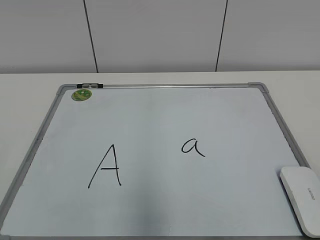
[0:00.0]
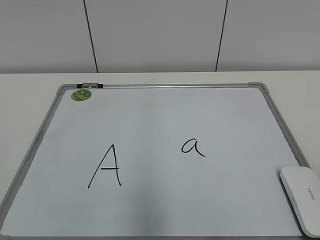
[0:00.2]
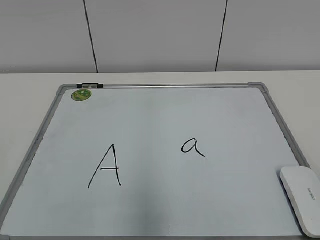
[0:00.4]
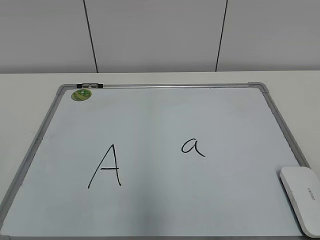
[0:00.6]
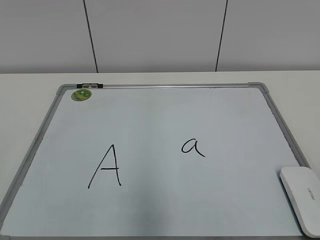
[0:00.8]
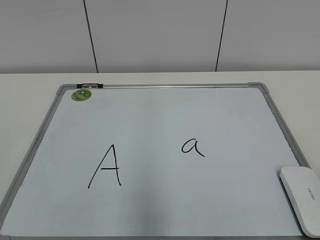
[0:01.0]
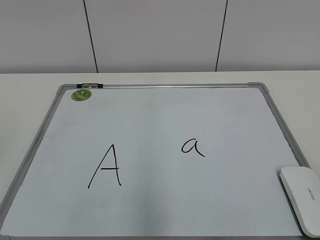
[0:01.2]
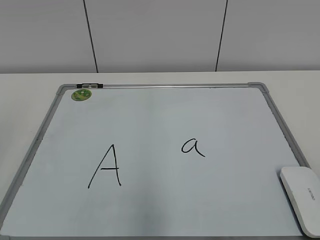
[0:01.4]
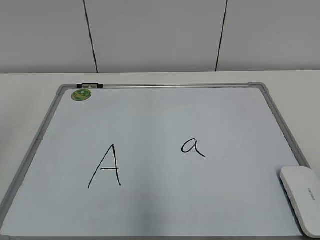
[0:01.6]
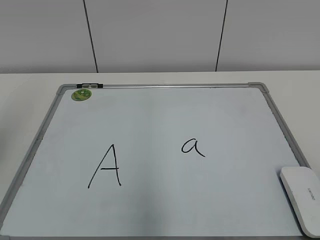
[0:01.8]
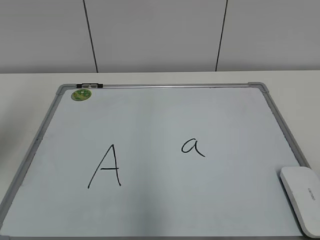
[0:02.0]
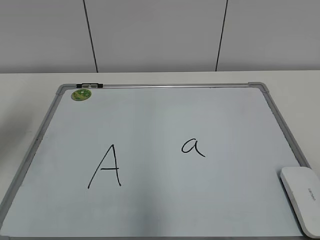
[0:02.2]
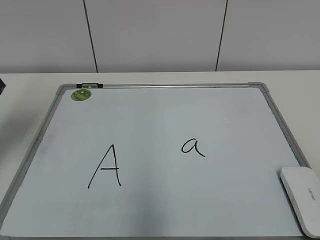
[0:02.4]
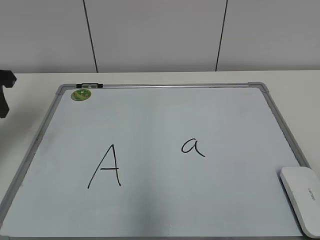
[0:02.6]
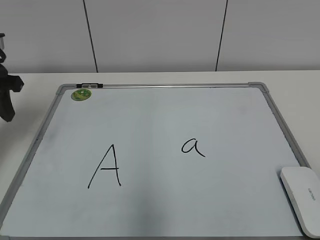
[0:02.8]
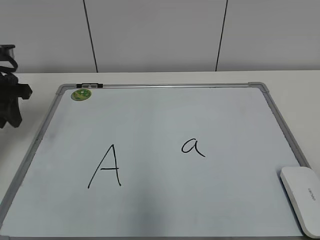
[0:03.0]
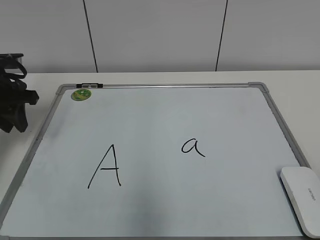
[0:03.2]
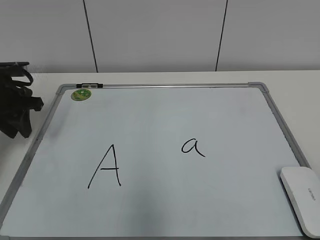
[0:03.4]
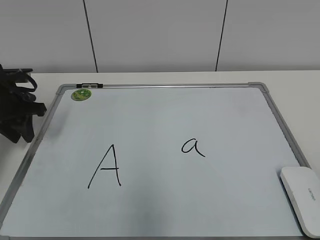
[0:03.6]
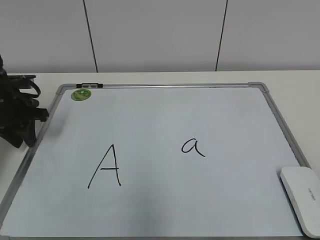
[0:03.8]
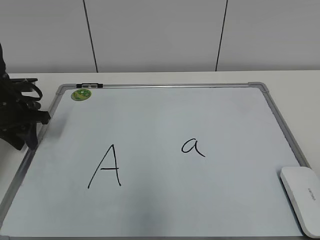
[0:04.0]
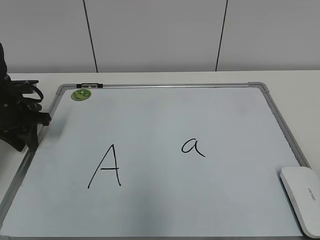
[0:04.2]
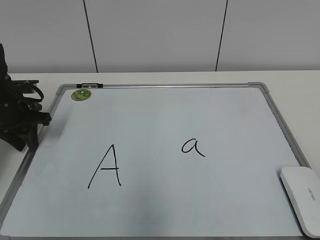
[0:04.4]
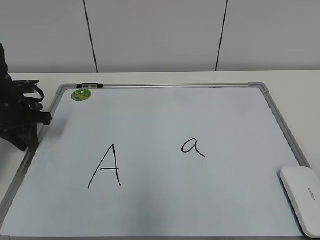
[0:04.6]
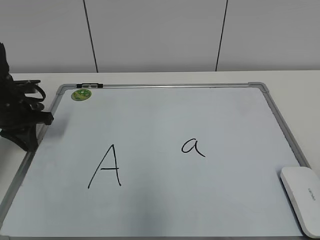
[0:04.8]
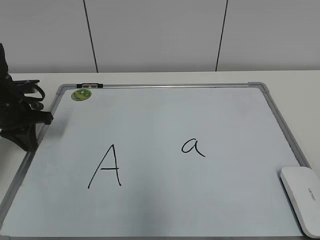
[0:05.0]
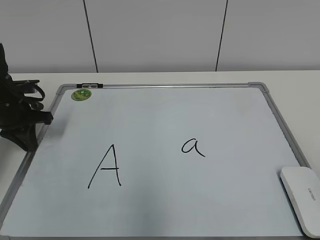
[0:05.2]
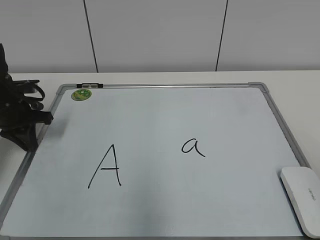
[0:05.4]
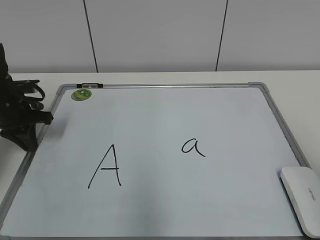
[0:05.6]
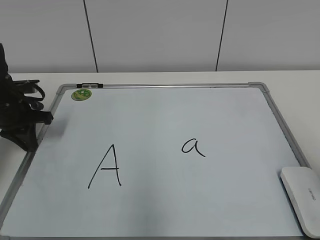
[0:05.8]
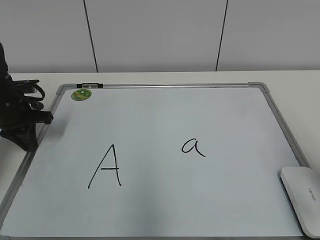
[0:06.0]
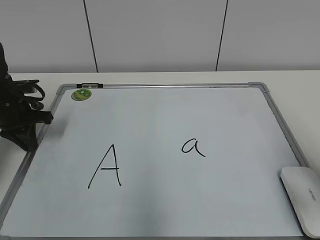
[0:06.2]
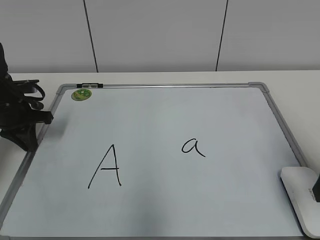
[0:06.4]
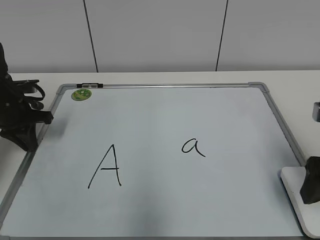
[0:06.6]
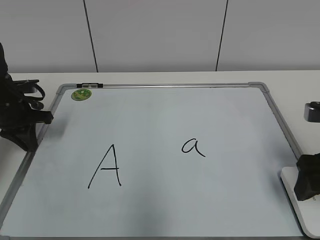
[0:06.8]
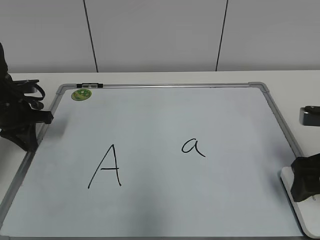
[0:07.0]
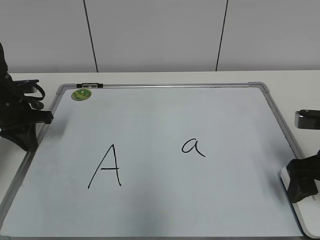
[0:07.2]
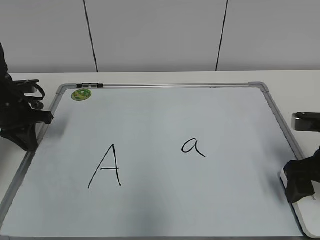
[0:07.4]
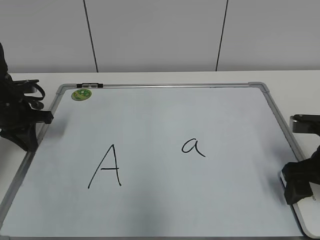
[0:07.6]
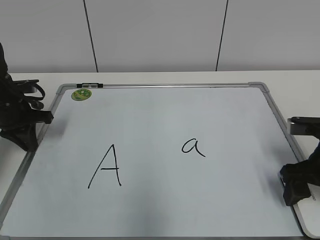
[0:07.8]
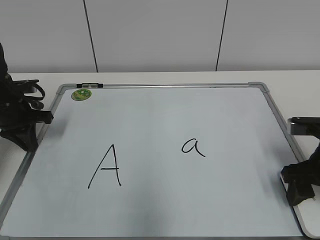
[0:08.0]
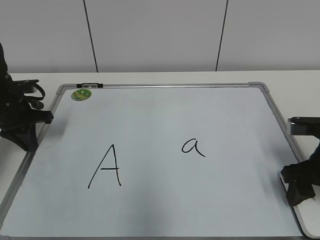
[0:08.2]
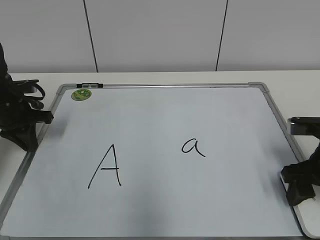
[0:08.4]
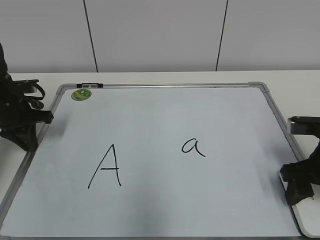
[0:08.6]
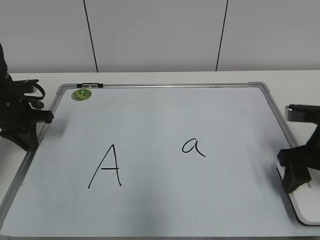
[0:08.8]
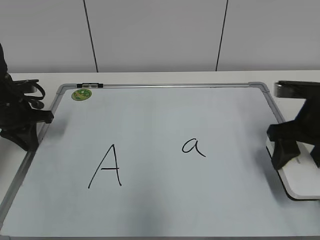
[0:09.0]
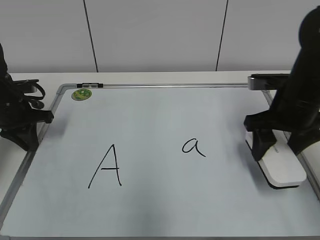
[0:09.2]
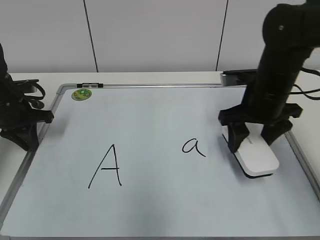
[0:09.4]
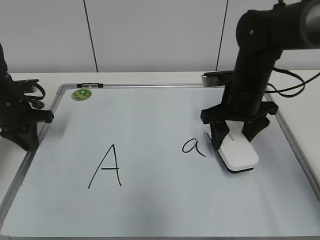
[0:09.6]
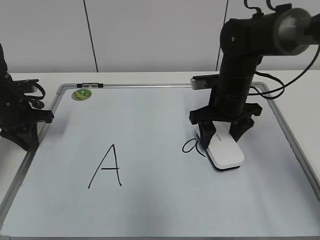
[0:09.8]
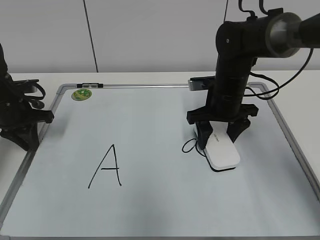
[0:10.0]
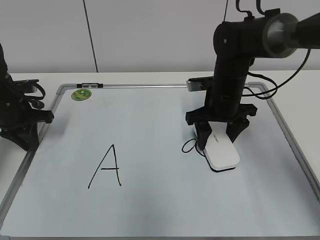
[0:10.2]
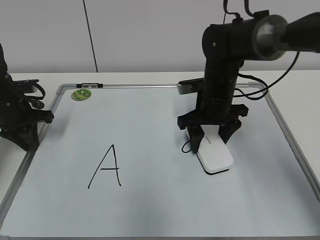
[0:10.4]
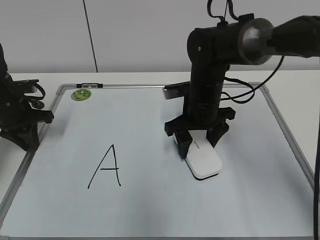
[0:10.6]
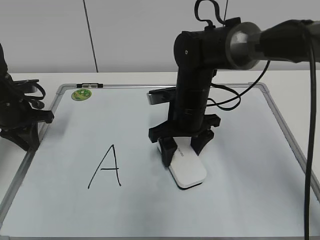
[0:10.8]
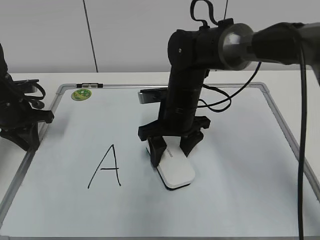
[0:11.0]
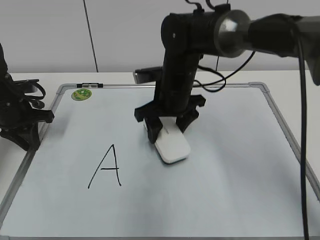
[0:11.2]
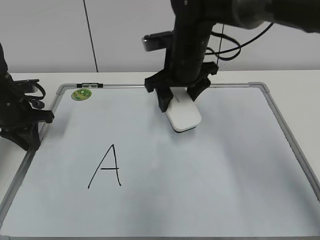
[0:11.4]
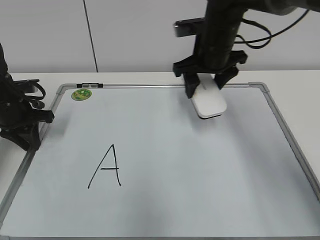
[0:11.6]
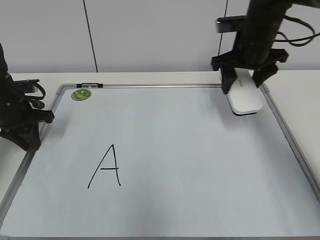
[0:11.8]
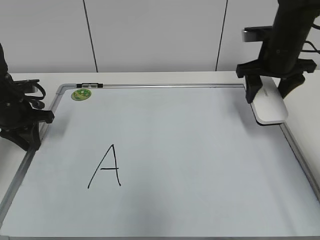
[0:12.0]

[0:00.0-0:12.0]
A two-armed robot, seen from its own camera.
Task of the whole recording: pick up the eraser on the blackboard and erase the letter "a".
Step, 0:00.0 to 0:05.2: Hold the drawing board steady with your left hand.
Step, 0:05.4 to 0:08.4: Grab the eraser with your right hand.
Step, 0:08.6 to 0:10.8: Erase the letter a with your right hand.
0:01.6 to 0:03.0: The left gripper goes approximately 30 cm forward and downward.
0:03.0 to 0:04.4: The left gripper heads downward, covering approximately 10 cm.
0:04.4 to 0:06.0: The right gripper heads forward, covering about 15 cm, and opens.
0:06.0 to 0:07.6: The right gripper heads downward and forward, covering roughly 15 cm.
0:07.6 to 0:09.0: The right gripper ends up roughly 5 cm from where it was, and closes.
0:09.0 to 0:10.4: The right gripper heads to the left and forward, covering about 15 cm.
0:10.4 to 0:12.0: The right gripper heads to the right and upward, covering some 15 cm.

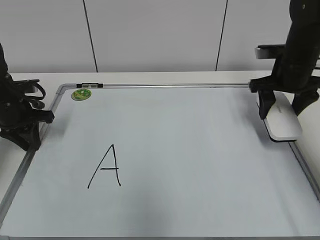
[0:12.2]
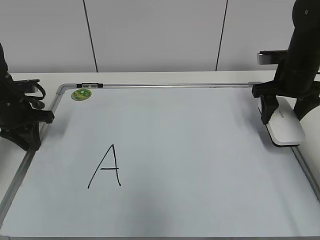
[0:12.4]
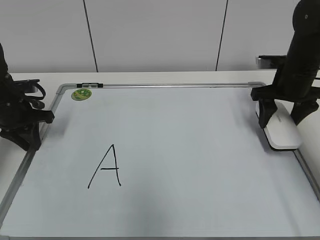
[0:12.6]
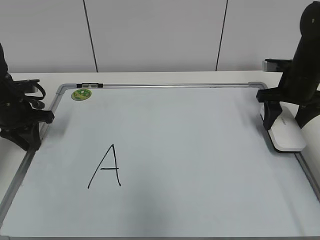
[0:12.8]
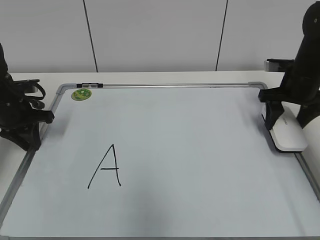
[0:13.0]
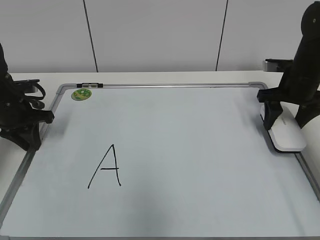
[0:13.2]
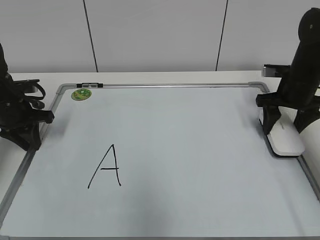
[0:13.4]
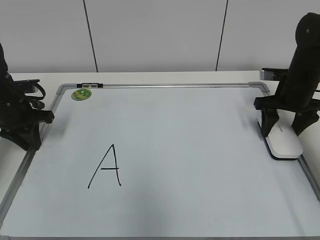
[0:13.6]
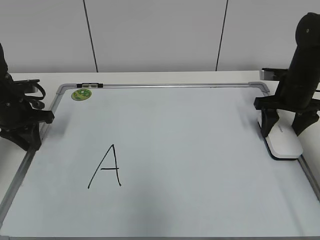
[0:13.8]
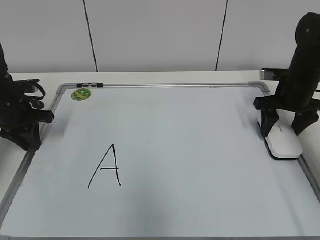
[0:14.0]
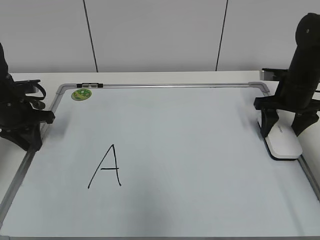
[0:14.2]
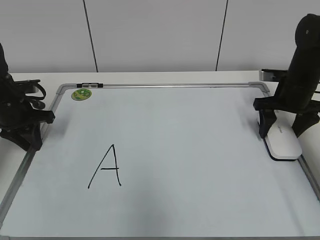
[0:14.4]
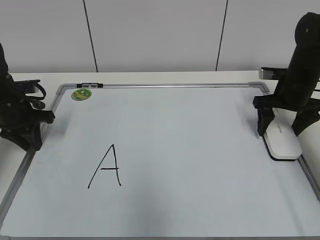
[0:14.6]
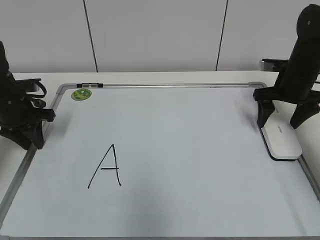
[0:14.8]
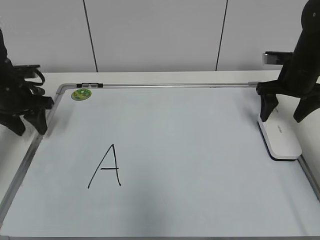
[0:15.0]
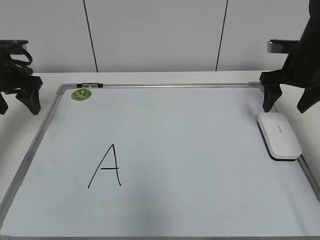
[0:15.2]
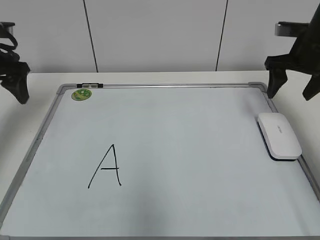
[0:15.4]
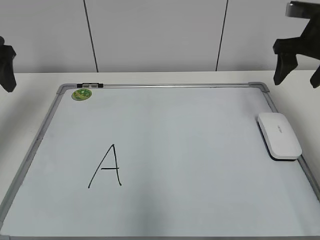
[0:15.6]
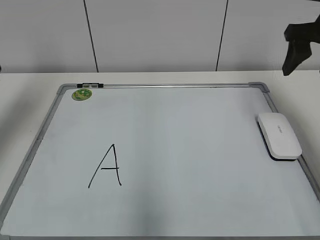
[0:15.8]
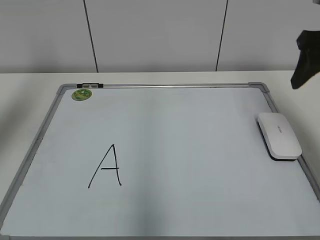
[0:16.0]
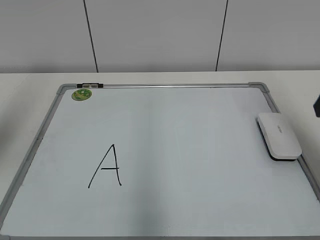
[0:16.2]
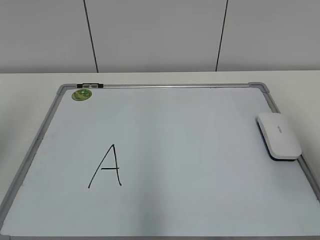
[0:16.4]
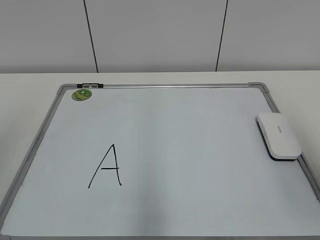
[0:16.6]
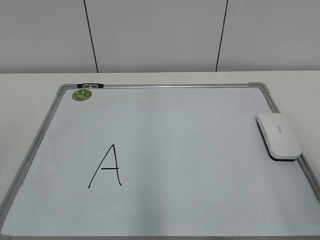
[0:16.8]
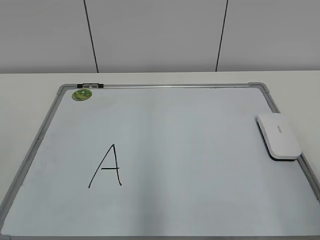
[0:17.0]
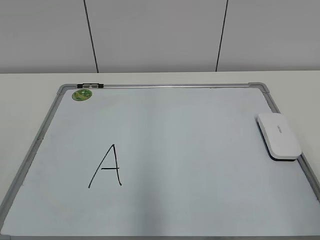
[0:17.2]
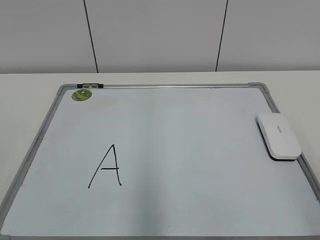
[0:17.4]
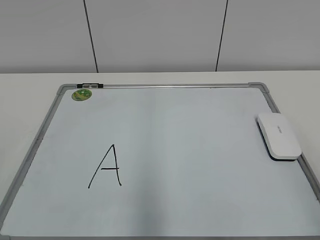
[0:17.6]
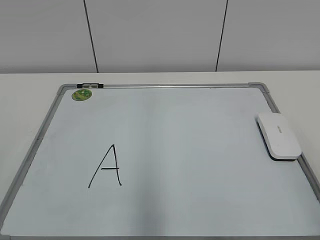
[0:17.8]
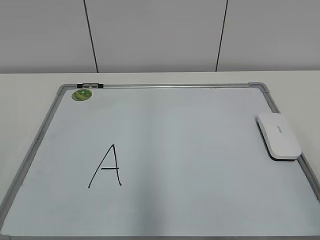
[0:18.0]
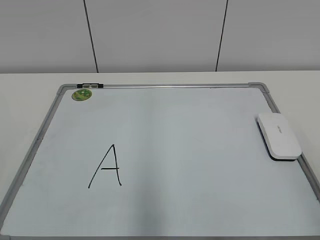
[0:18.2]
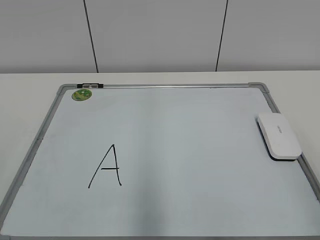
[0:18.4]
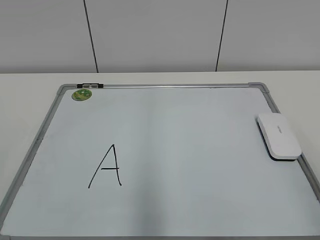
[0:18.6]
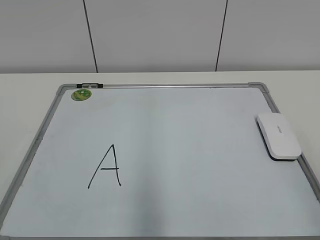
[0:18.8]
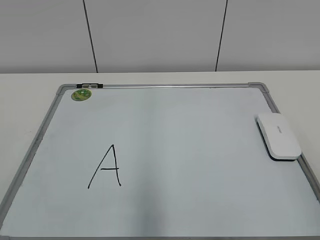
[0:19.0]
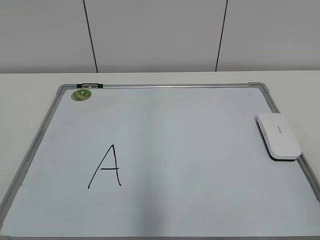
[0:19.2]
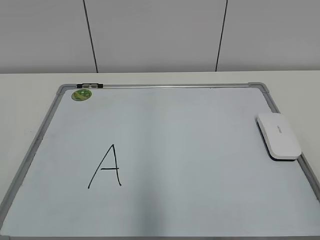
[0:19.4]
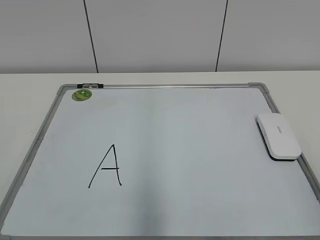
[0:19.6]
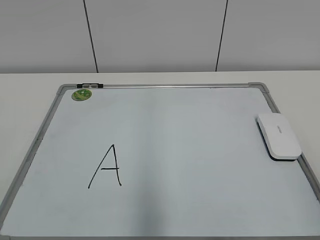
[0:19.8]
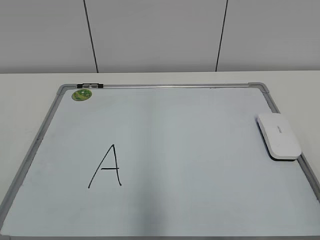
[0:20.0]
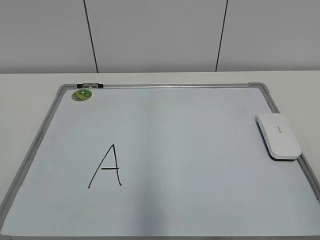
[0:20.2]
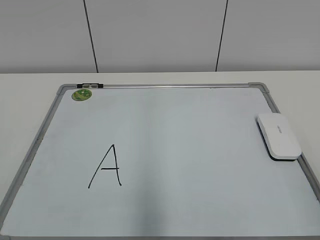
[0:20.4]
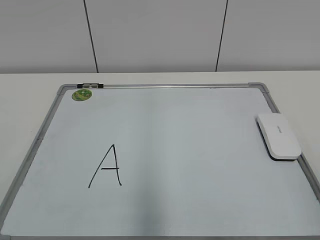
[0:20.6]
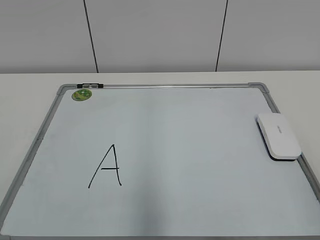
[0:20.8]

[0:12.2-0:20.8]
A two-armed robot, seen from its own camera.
Task of the whole recording: pick up the eraser on the blackboard and erase the letter "a".
Step, 0:12.2 to 0:13.8: Put down the eraser with your right hand.
0:12.2 to 0:13.6: The right gripper changes place by roughly 5 cm.
0:13.6 to 0:15.0: The right gripper opens up. The left gripper opens its fingers.
0:15.0 to 0:16.6: The two grippers go about 35 cm backward and upward. The right gripper closes.
0:19.4 to 0:20.8: Neither gripper changes place.
